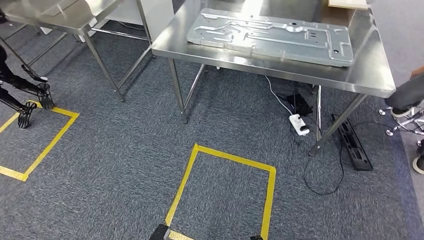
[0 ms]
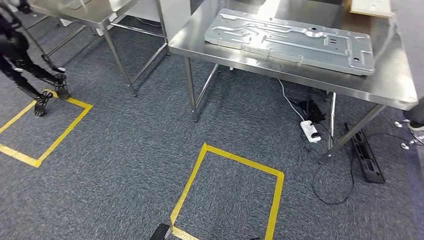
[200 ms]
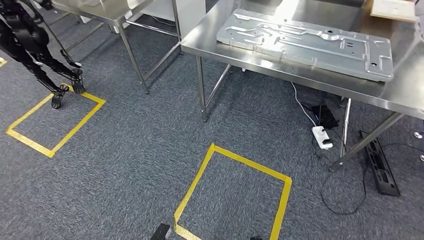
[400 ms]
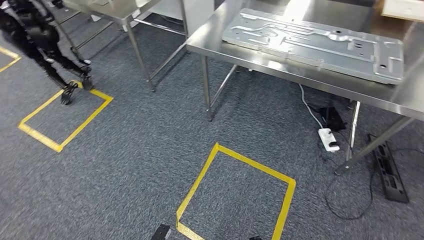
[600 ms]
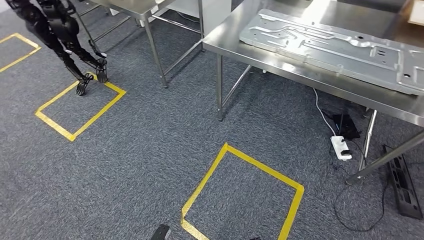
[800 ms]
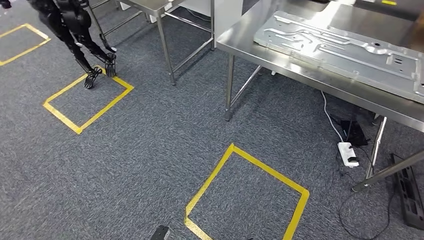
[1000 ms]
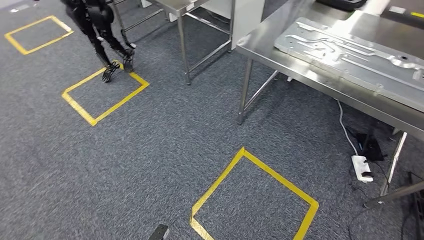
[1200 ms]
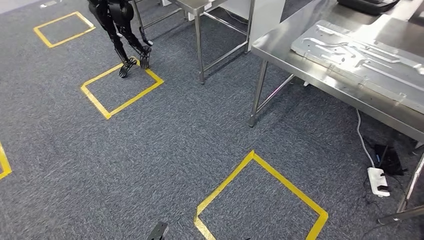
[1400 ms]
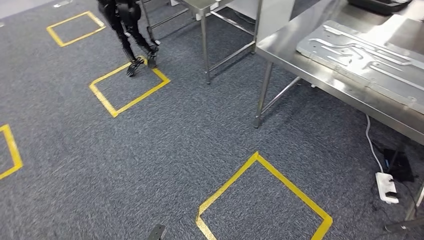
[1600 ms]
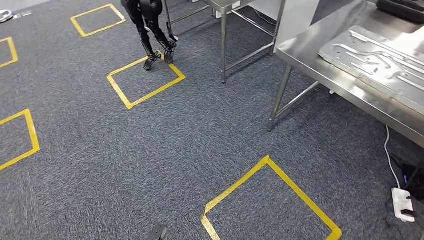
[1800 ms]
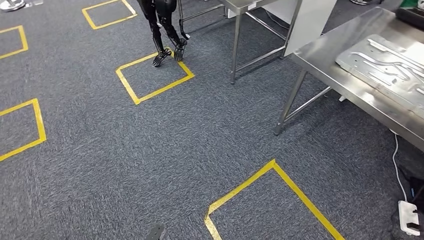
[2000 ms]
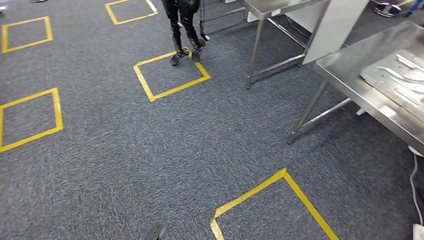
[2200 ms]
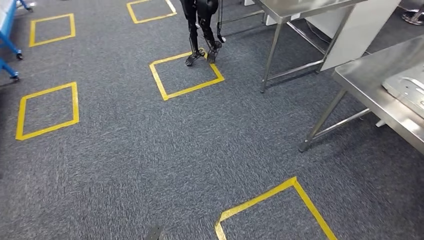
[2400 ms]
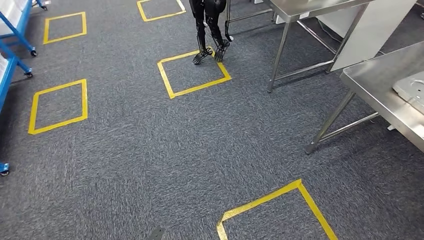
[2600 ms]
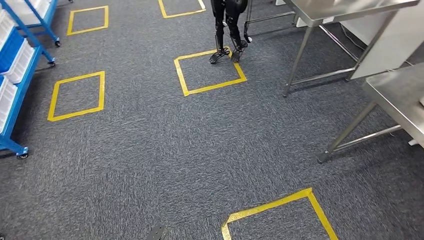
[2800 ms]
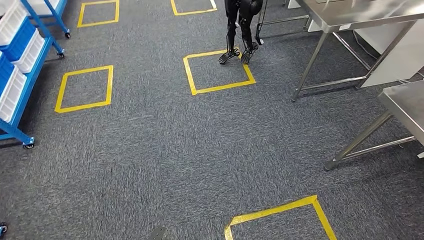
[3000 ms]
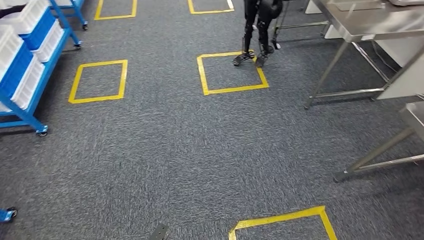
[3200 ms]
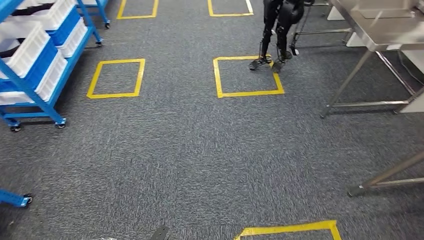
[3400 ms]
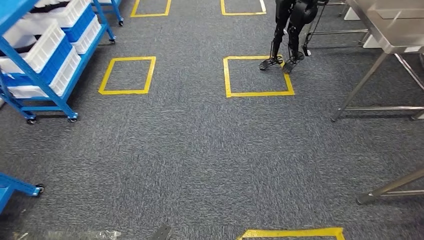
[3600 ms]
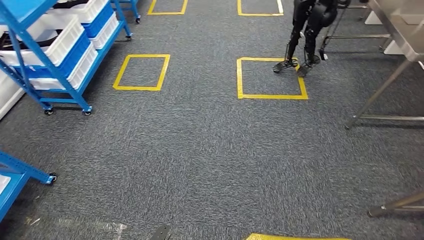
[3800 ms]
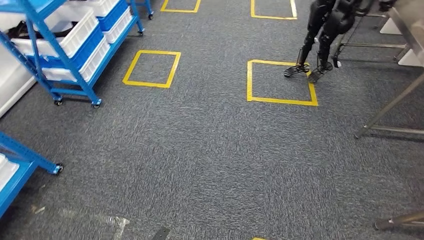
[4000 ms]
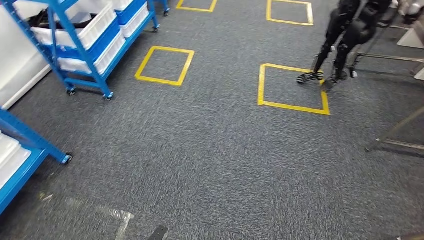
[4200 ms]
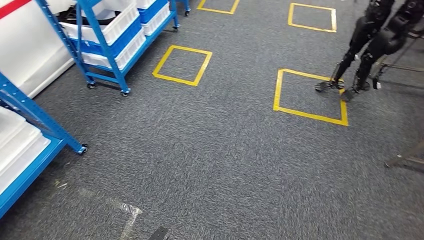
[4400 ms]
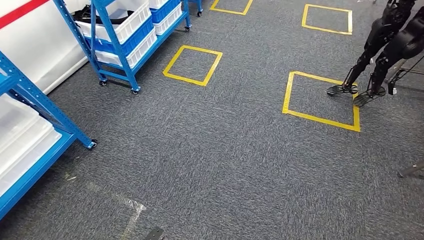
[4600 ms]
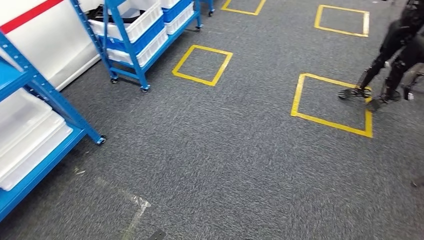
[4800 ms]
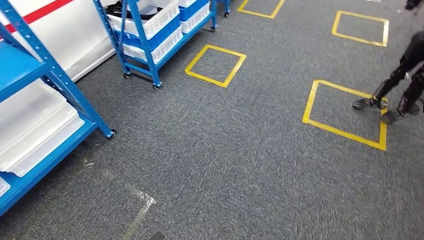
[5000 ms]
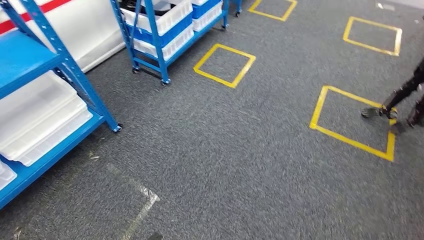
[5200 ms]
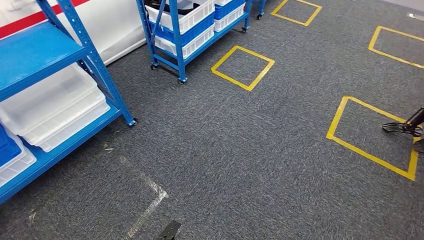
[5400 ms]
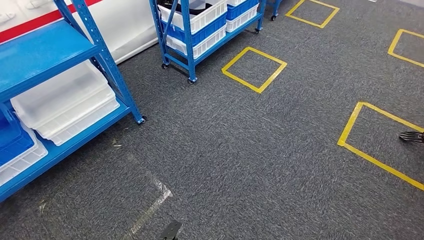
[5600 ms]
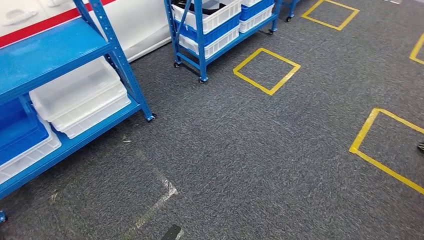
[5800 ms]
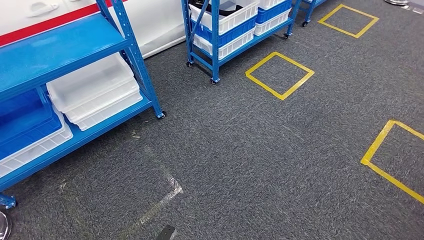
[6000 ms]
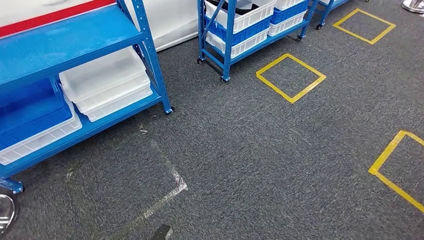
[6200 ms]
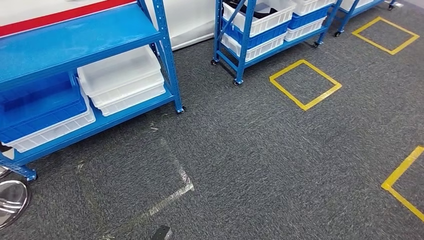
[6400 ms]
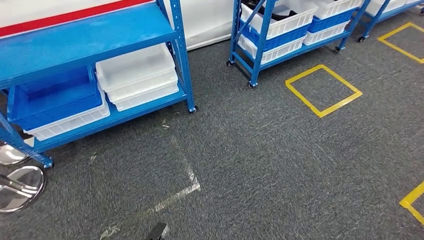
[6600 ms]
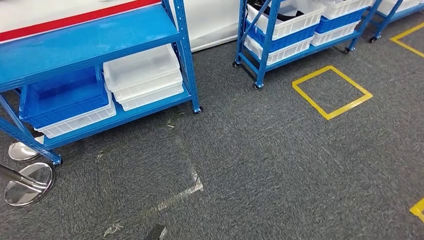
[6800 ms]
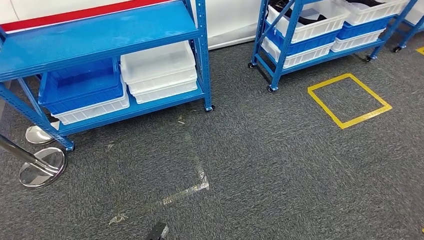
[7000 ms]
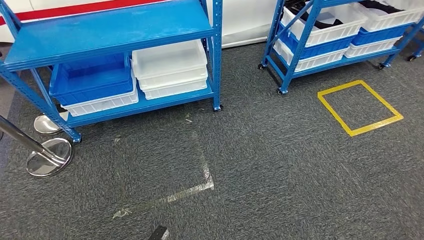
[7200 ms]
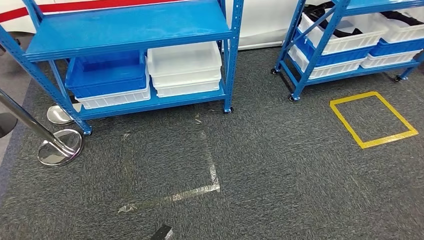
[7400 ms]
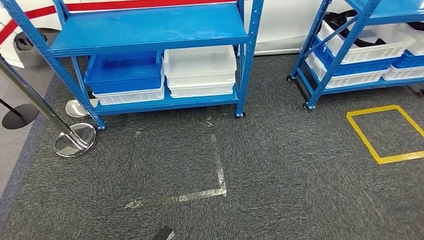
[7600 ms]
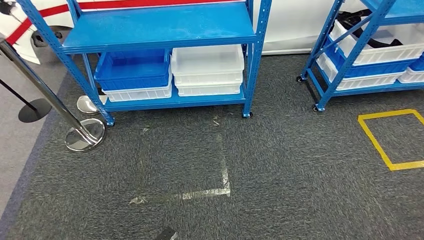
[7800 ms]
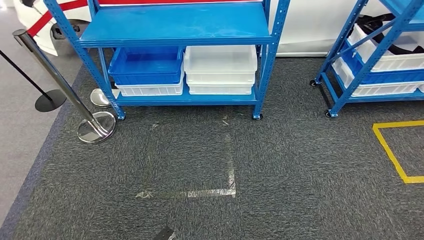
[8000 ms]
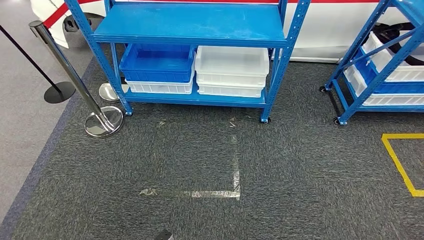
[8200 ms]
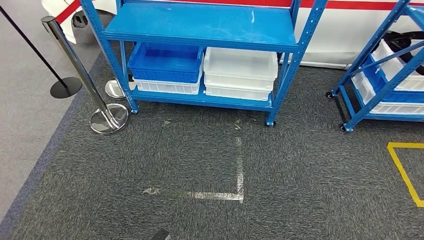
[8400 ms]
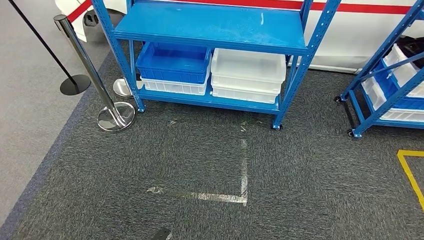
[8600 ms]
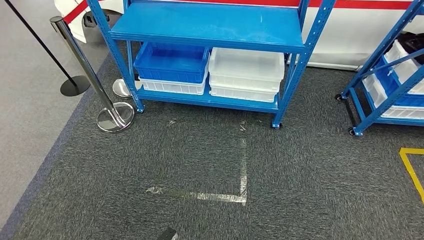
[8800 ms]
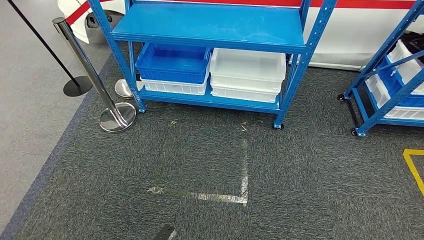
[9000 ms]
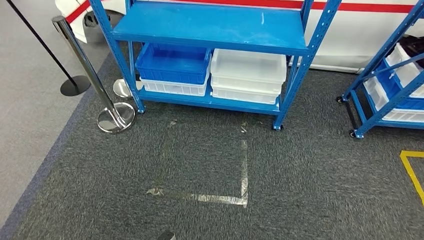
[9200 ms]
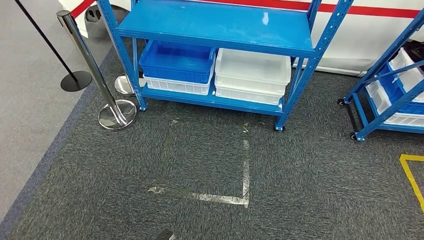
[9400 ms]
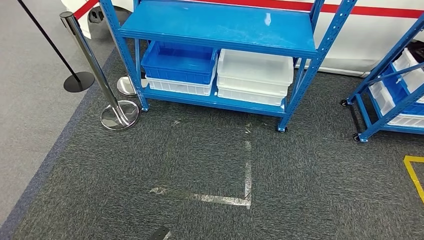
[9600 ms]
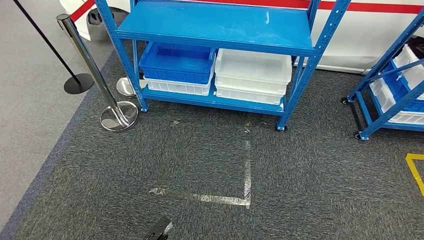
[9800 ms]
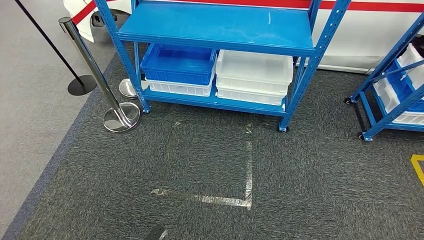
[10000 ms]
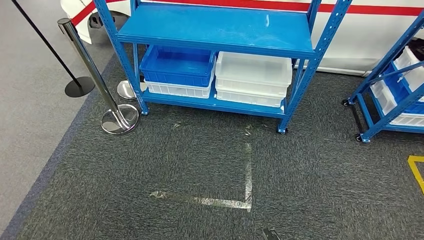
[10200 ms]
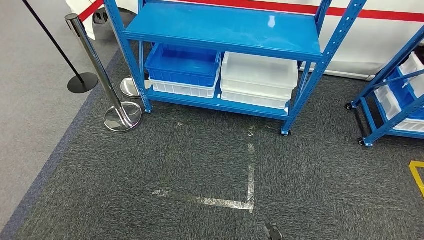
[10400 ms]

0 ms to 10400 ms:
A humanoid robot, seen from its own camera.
Step, 0 ms to 10400 ms: Move to the initial position of the shelf.
